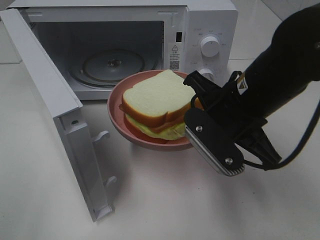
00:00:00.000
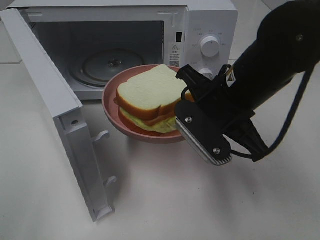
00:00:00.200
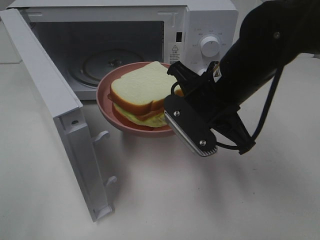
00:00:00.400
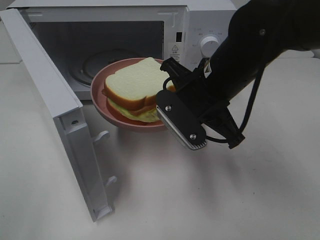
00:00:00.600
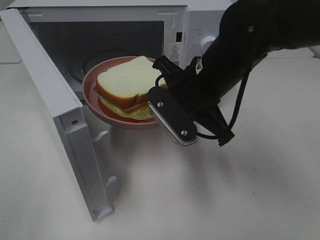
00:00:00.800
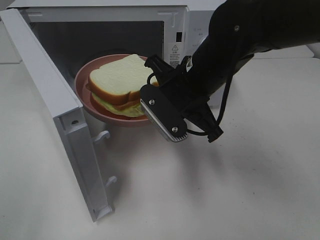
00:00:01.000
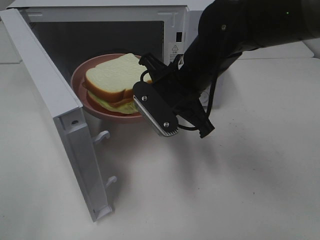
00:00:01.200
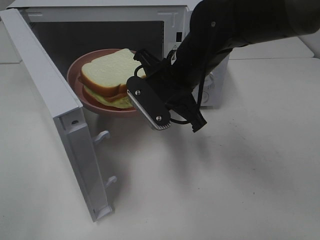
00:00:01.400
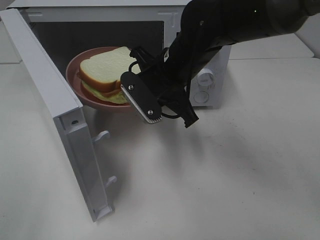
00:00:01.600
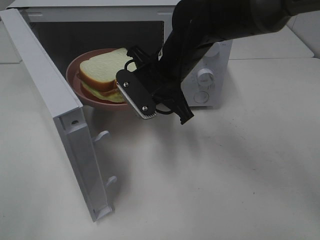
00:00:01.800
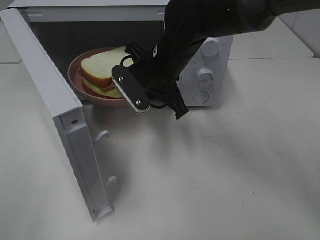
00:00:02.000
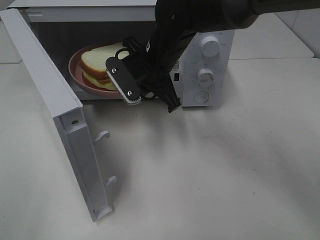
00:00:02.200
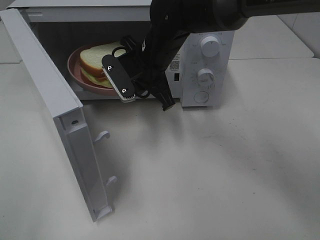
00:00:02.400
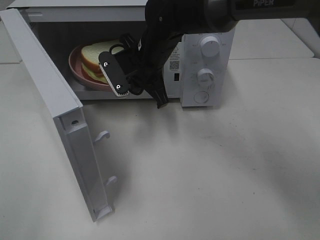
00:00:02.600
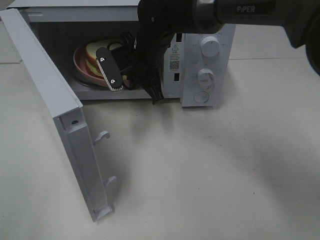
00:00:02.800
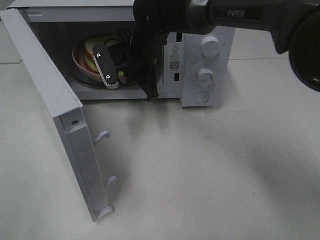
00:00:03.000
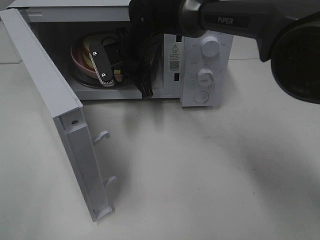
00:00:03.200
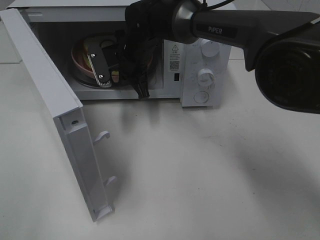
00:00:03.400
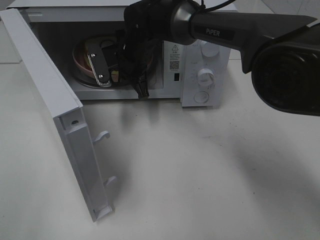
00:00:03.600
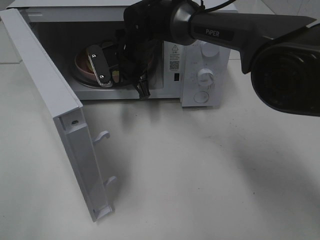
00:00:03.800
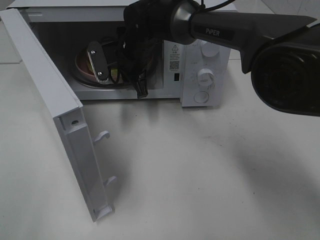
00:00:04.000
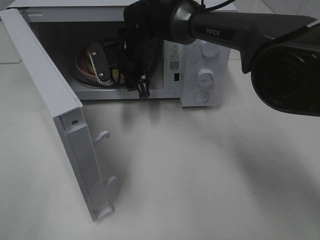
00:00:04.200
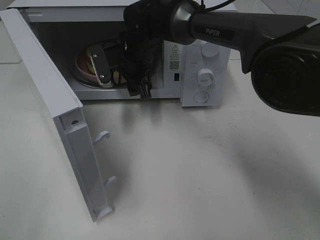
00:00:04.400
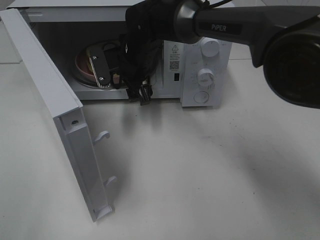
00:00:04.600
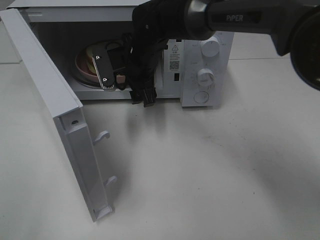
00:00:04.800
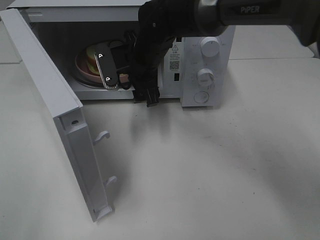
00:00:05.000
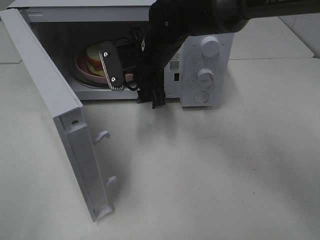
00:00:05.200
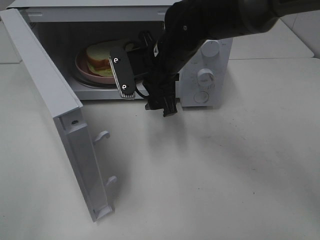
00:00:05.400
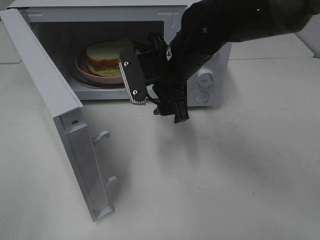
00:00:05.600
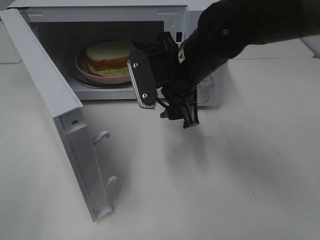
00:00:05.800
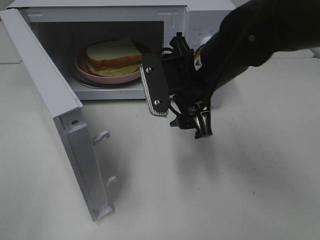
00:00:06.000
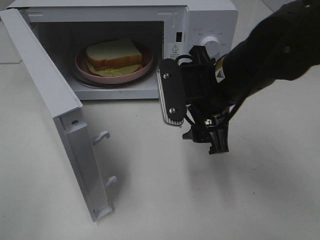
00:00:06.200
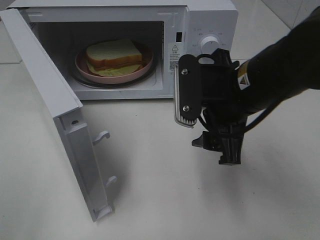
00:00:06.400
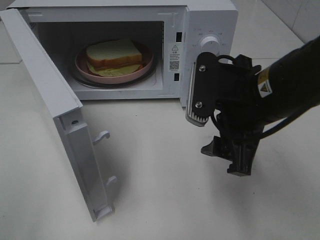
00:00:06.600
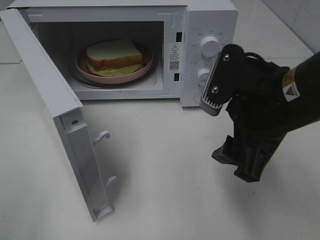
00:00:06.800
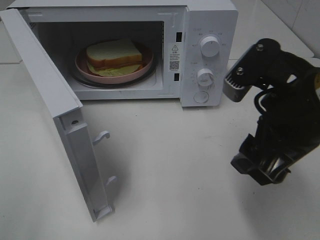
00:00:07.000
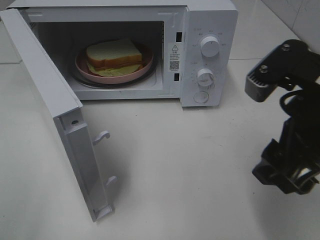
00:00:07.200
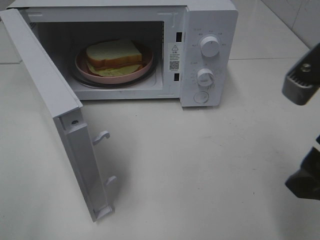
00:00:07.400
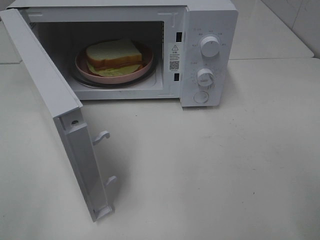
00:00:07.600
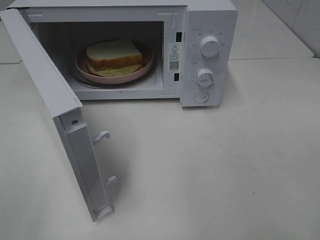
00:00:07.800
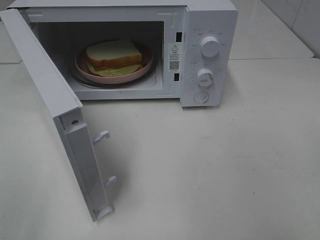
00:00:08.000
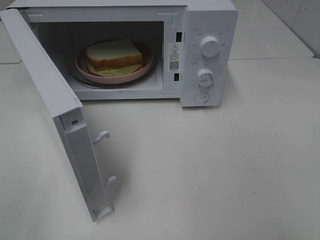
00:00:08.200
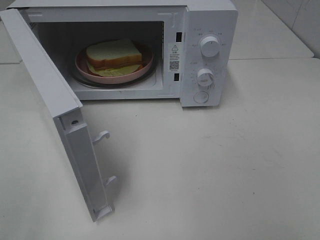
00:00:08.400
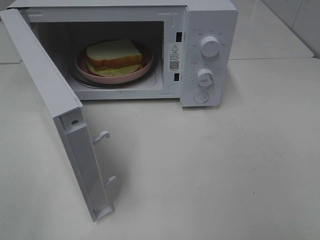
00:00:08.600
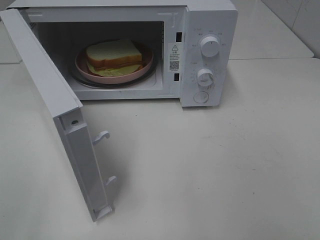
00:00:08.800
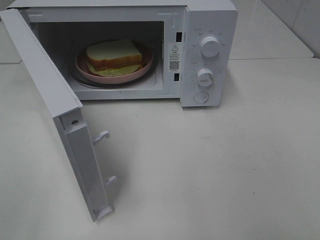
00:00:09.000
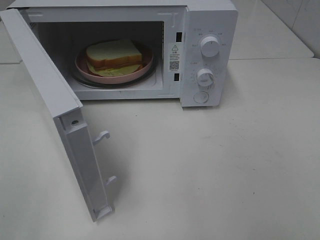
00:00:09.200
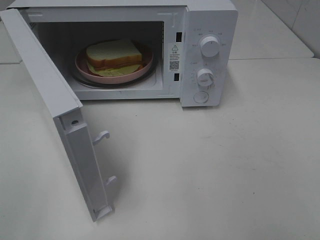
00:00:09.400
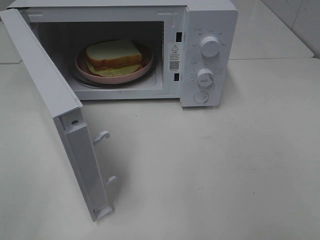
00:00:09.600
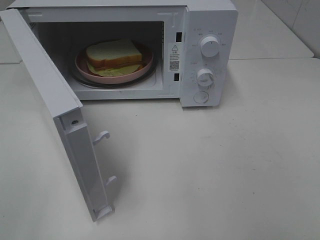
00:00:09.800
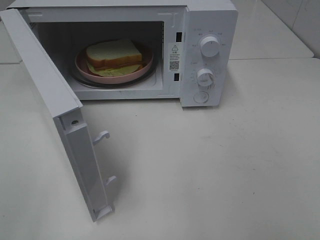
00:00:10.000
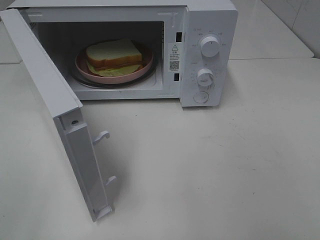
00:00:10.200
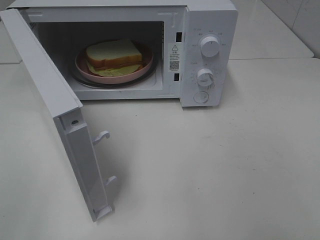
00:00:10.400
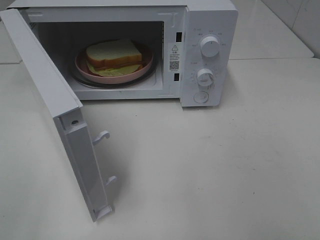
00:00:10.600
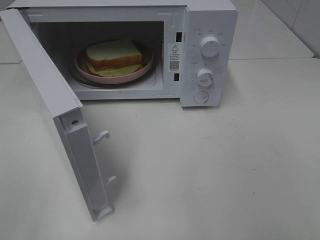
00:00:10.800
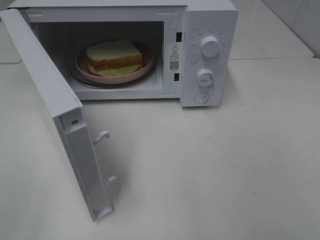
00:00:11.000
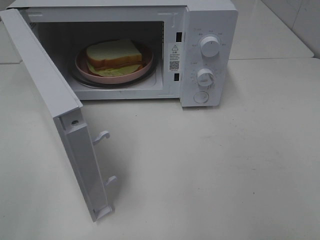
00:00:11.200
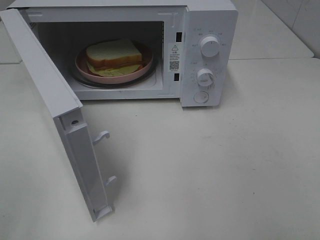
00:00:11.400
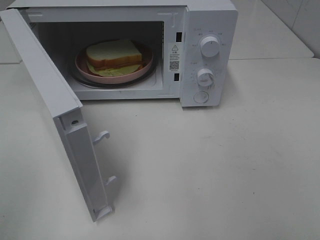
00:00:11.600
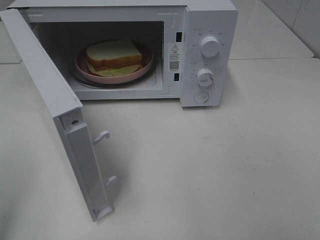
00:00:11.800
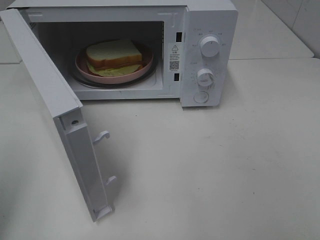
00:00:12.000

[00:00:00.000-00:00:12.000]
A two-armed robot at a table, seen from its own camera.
Task of the whole recording: Heat Sandwich.
Step, 00:00:00.000 to 00:00:05.200: Right hand: place the plate in the microwave.
00:00:00.000 to 00:00:01.600: The right gripper moves forward and to the left, some 10 cm.
00:00:01.600 to 00:00:03.000: The right gripper travels forward and to the left by some 10 cm.
00:00:03.000 to 00:00:04.400: The right gripper opens its fingers.
00:00:04.400 to 00:00:06.000: The right gripper heads backward and to the right, covering roughly 20 cm.
00:00:06.000 to 00:00:07.600: The right gripper travels backward, to the right and upward by some 25 cm.
00:00:09.000 to 00:00:10.400: The two grippers keep their place.

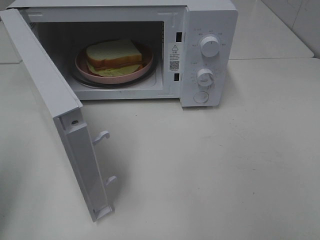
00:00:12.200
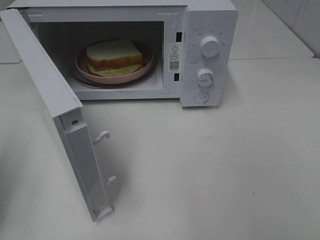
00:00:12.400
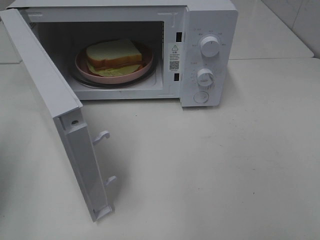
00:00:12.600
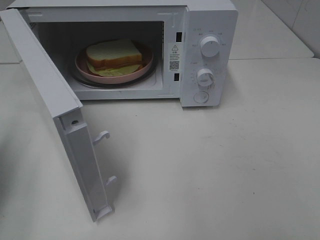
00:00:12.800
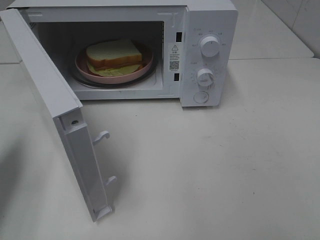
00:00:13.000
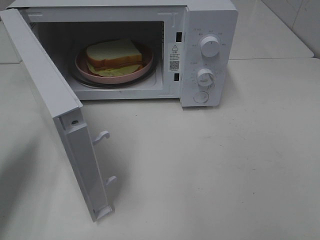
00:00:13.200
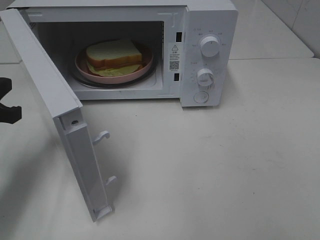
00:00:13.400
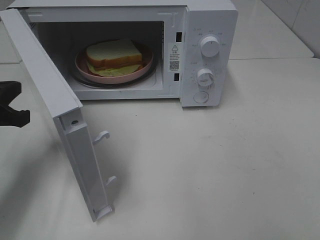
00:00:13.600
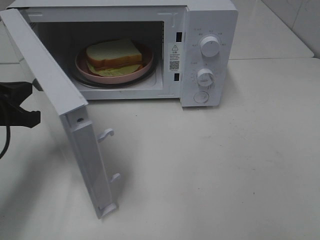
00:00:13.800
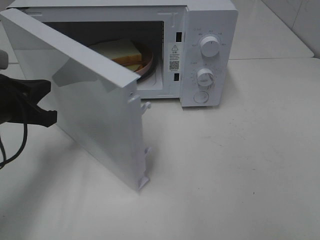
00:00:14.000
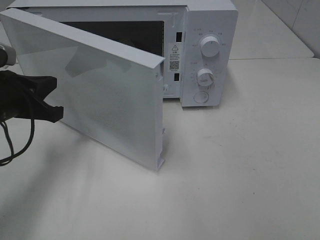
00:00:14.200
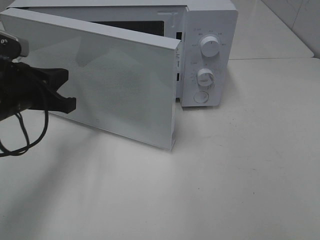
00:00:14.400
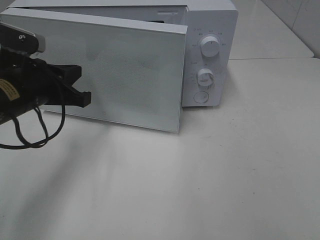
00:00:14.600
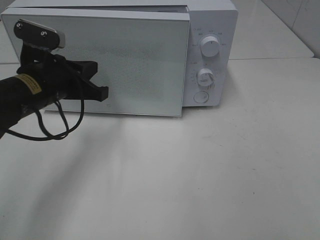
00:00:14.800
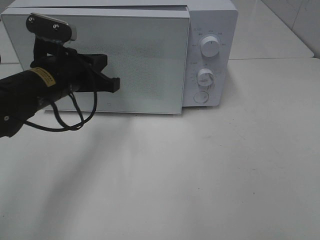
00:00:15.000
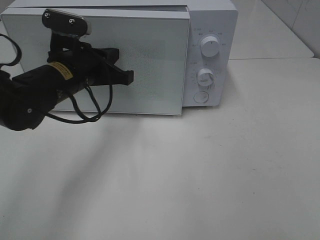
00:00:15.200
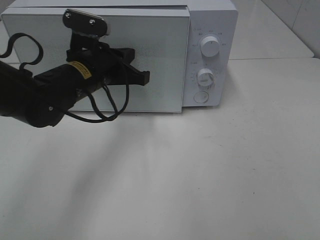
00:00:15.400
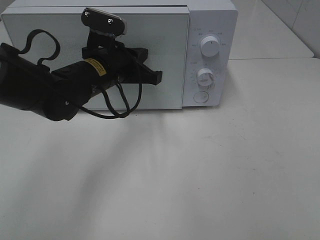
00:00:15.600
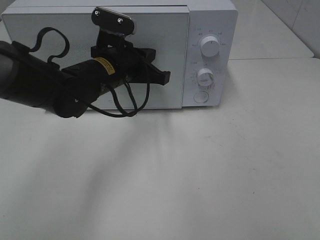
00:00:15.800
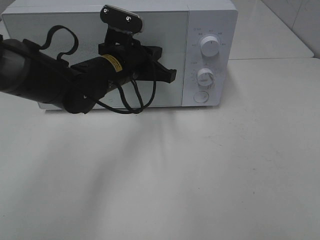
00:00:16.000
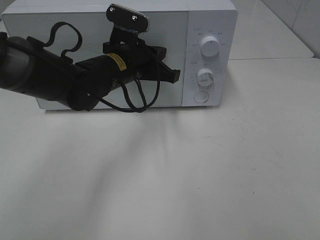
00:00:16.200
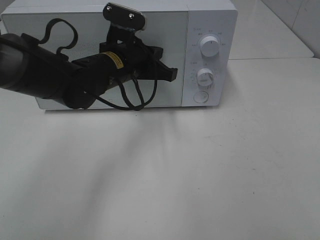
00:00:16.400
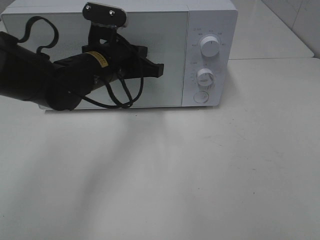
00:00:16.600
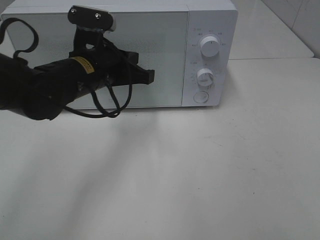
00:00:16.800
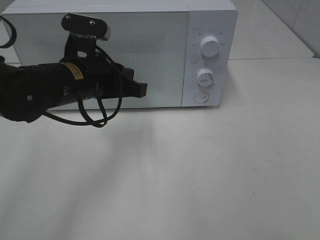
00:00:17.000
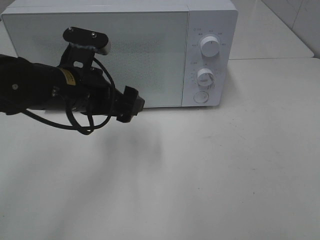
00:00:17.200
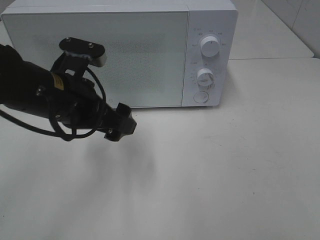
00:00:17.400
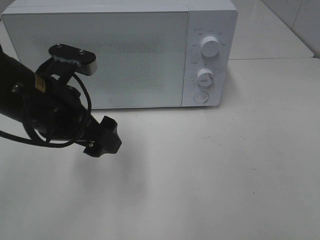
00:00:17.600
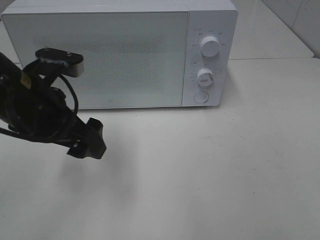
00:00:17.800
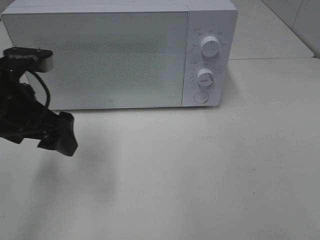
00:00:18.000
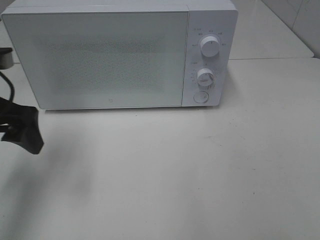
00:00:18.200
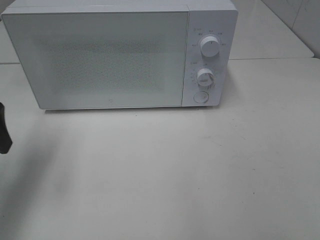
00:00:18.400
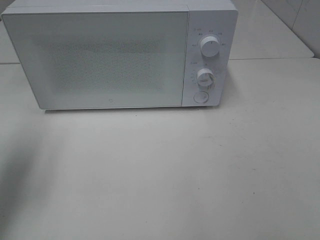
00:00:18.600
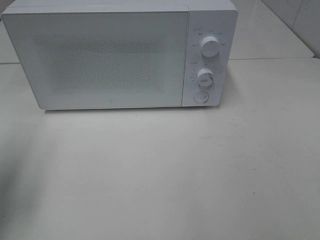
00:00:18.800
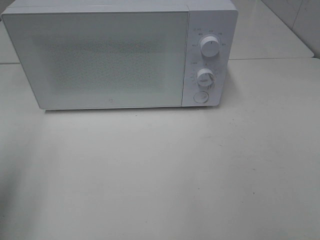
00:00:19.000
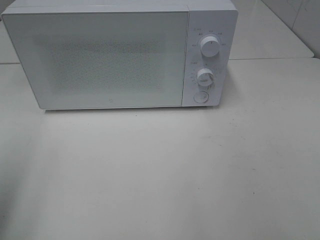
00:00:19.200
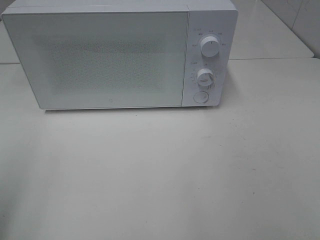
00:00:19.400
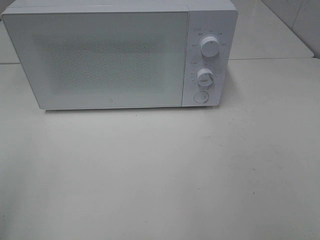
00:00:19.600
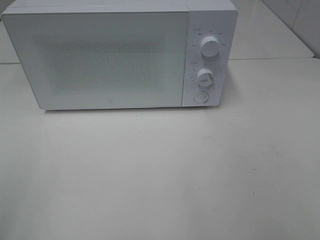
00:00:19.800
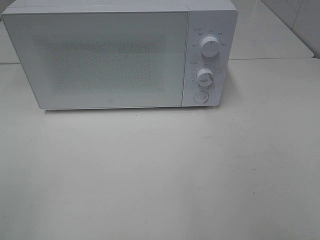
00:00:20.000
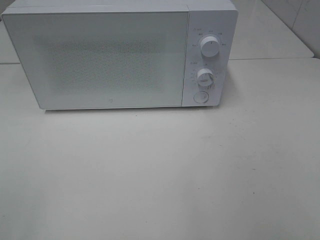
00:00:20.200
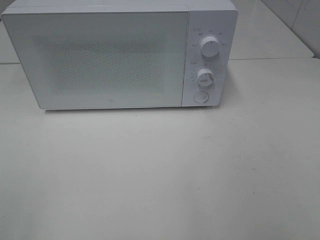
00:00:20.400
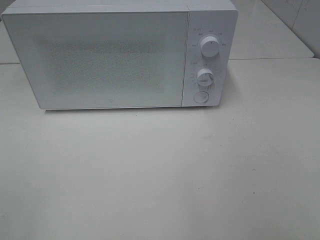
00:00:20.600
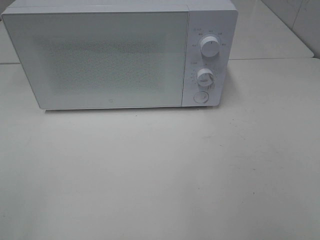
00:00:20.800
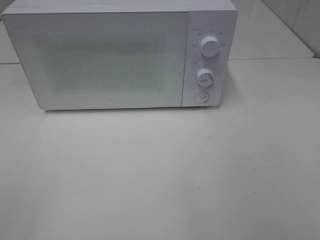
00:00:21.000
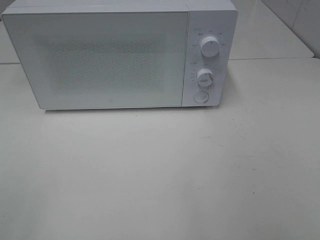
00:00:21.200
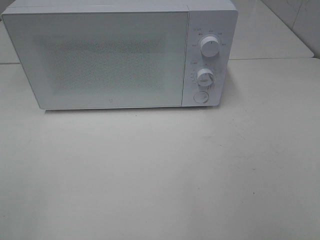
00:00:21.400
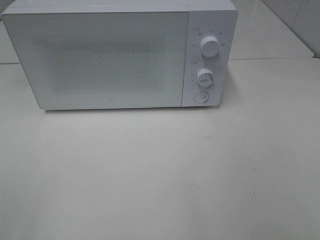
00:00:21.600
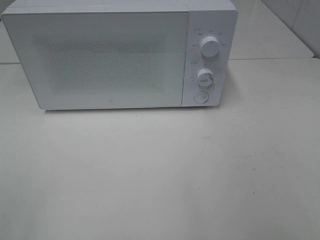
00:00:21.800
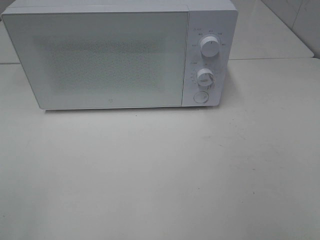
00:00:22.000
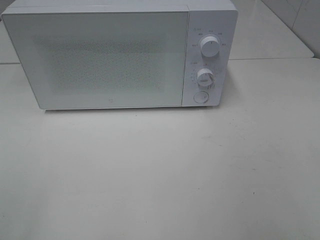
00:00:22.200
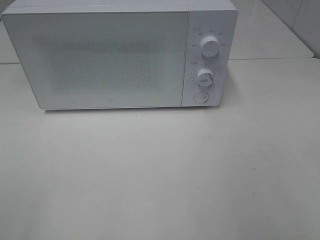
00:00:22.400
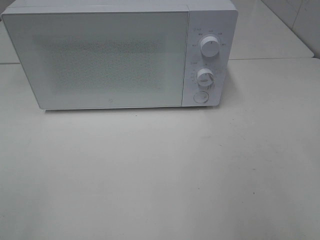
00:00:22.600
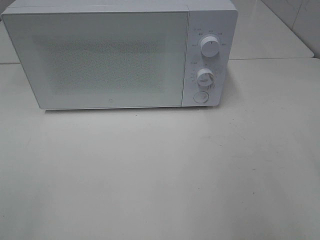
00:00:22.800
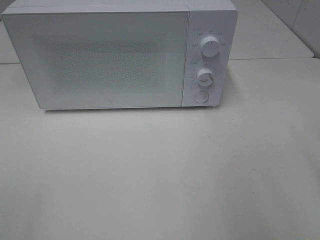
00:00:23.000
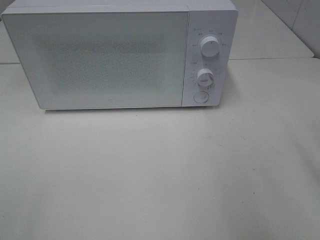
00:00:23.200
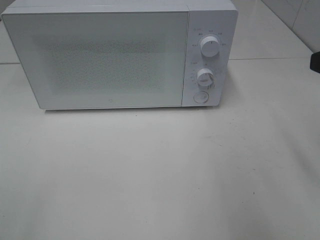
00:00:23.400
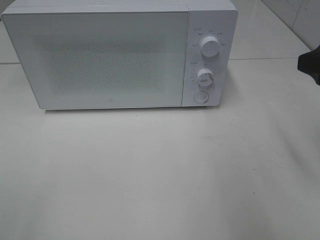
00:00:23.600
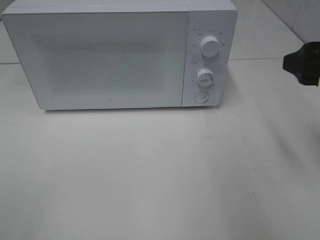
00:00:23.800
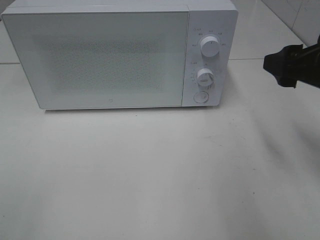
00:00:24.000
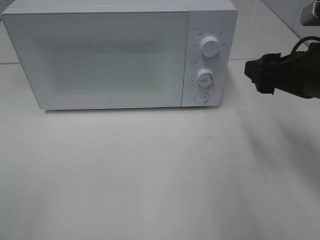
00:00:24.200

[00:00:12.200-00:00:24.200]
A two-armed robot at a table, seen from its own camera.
Task of the whole recording: Heat Sandwich.
Step, 00:00:12.200 to 00:00:16.600: Left hand: close the microwave door.
00:00:12.200 to 00:00:13.800: The left gripper travels forward, downward and to the right by roughly 20 cm.
00:00:13.800 to 00:00:15.200: The left gripper goes about 15 cm to the right and forward.
00:00:16.600 to 00:00:18.200: The left gripper moves to the left and backward, some 20 cm, and opens its fingers.
00:00:18.200 to 00:00:19.800: The left gripper travels backward by some 20 cm.
00:00:22.600 to 00:00:24.200: The right gripper moves forward and downward, roughly 20 cm.
